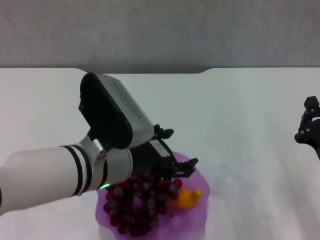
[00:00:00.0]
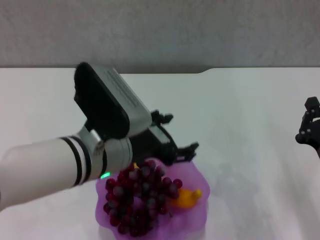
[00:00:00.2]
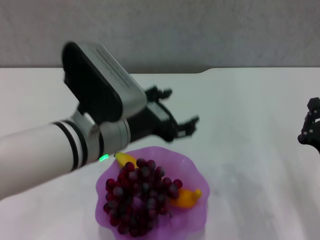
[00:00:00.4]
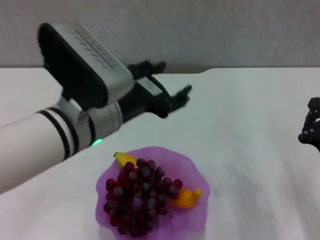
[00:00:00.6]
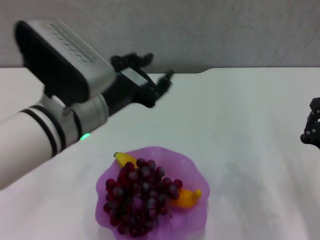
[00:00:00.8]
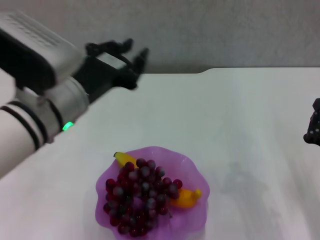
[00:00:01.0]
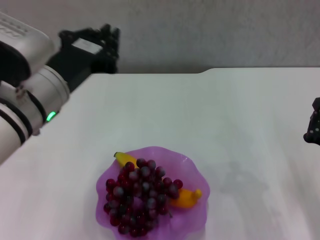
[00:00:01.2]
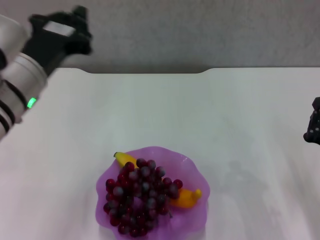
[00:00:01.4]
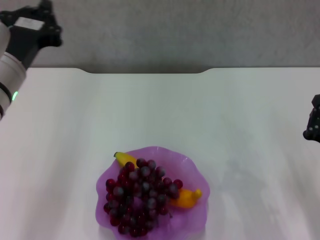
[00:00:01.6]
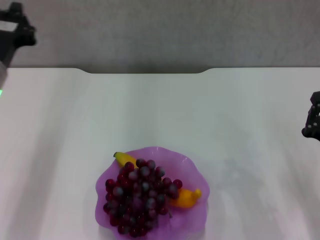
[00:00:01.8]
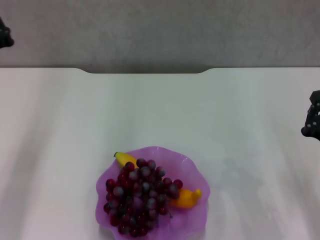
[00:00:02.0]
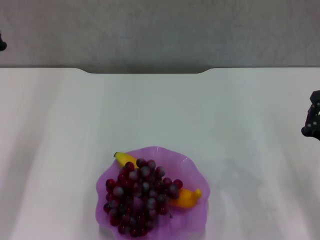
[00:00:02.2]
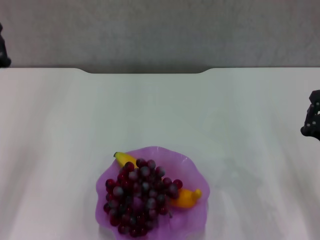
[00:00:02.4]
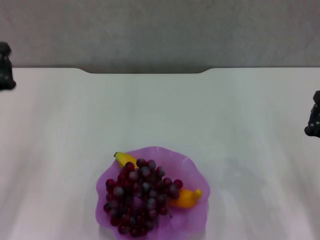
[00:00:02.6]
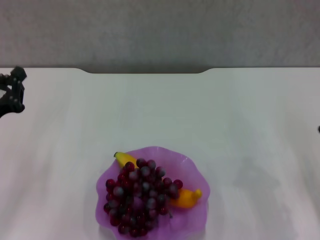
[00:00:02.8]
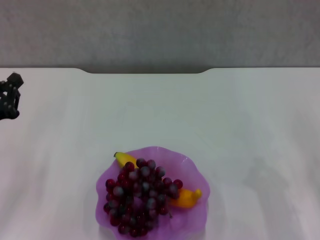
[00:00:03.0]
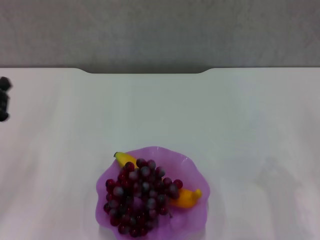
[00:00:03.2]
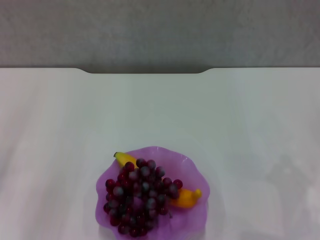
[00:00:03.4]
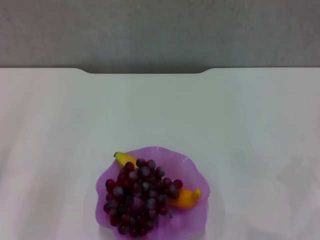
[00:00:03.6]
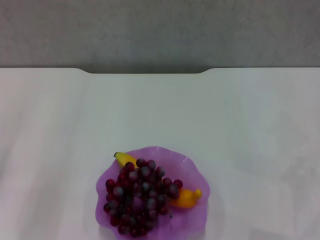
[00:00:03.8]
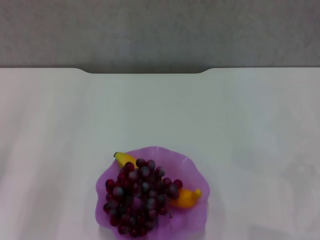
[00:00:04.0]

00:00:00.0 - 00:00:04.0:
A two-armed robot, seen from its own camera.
00:00:00.0 - 00:00:01.4: The left gripper goes about 10 cm to the left and upward, and closes up.
00:00:01.4 - 00:00:02.6: The left gripper goes some 15 cm to the left and downward.
00:00:02.6 - 00:00:04.0: The right gripper is displaced to the right by roughly 5 cm. Meanwhile the left gripper moves roughly 5 cm.

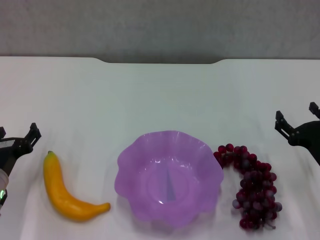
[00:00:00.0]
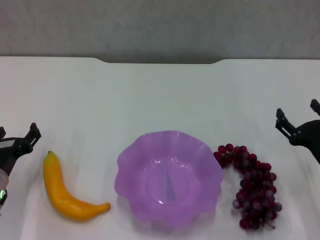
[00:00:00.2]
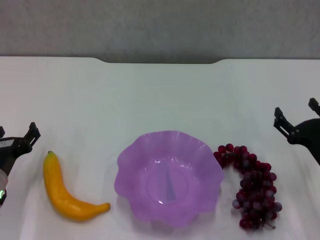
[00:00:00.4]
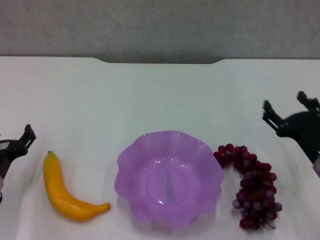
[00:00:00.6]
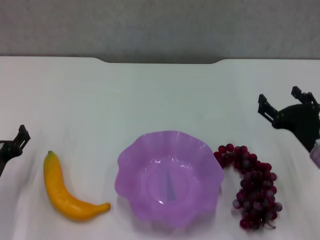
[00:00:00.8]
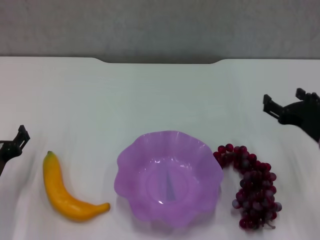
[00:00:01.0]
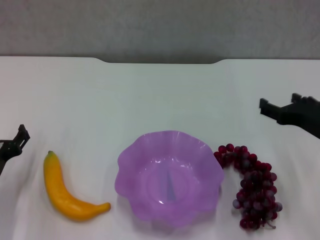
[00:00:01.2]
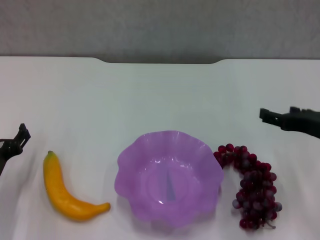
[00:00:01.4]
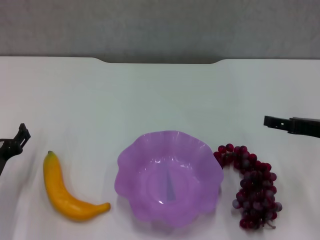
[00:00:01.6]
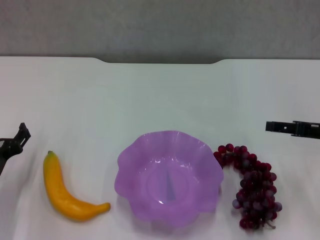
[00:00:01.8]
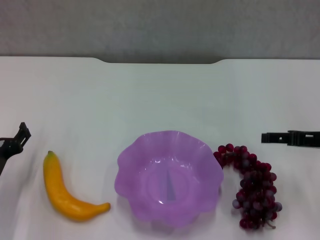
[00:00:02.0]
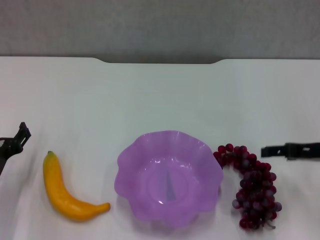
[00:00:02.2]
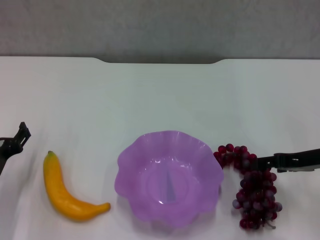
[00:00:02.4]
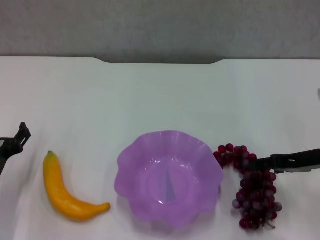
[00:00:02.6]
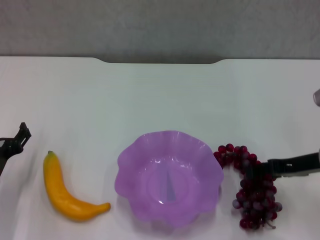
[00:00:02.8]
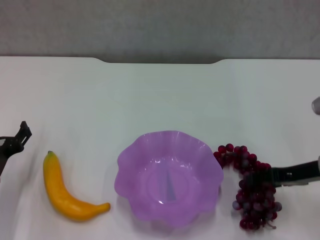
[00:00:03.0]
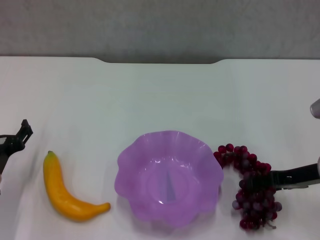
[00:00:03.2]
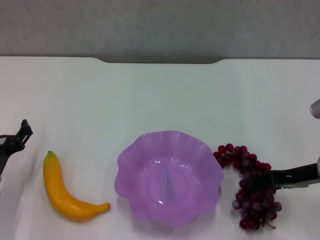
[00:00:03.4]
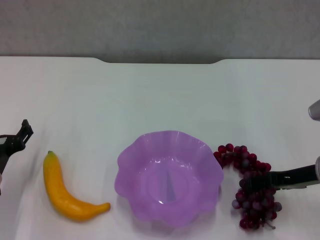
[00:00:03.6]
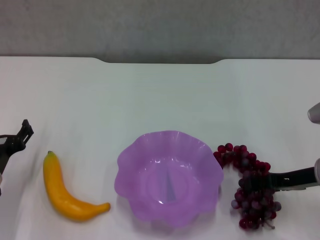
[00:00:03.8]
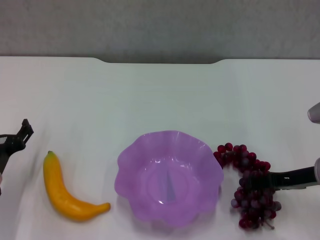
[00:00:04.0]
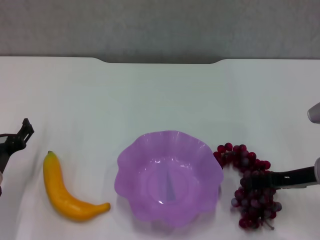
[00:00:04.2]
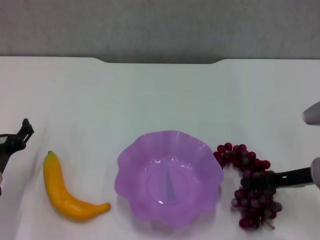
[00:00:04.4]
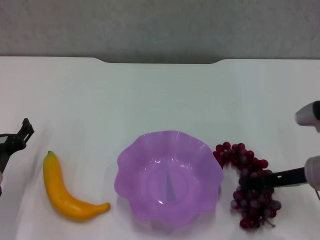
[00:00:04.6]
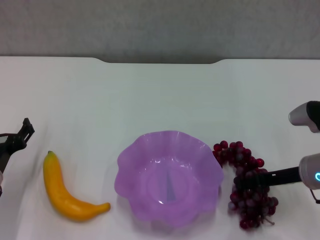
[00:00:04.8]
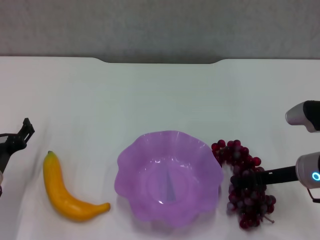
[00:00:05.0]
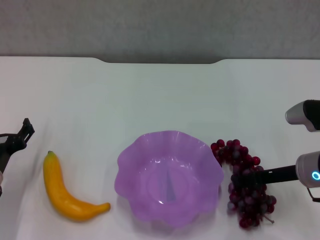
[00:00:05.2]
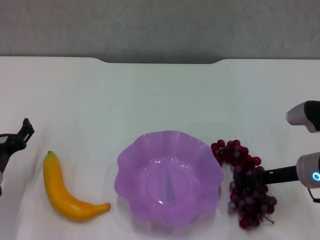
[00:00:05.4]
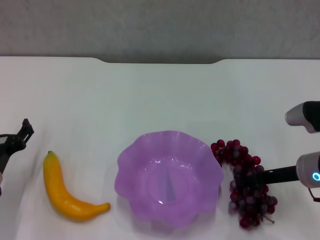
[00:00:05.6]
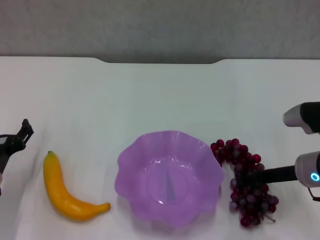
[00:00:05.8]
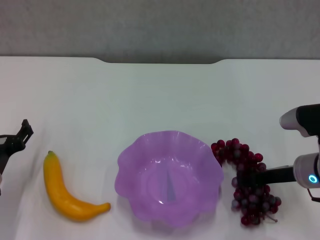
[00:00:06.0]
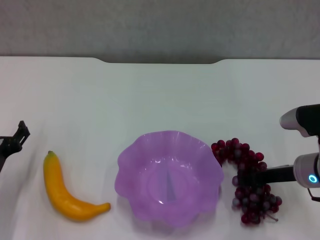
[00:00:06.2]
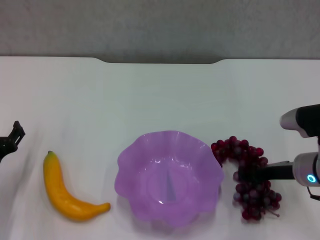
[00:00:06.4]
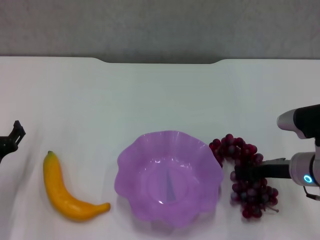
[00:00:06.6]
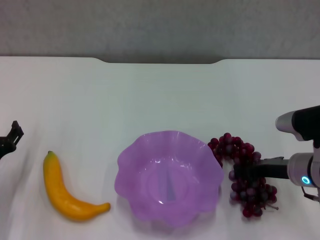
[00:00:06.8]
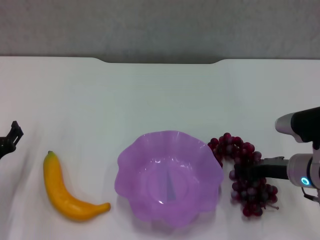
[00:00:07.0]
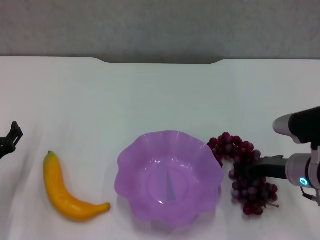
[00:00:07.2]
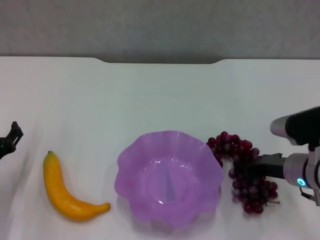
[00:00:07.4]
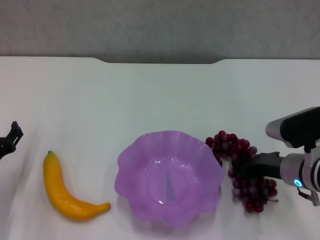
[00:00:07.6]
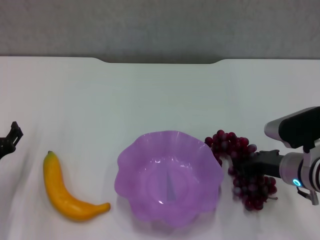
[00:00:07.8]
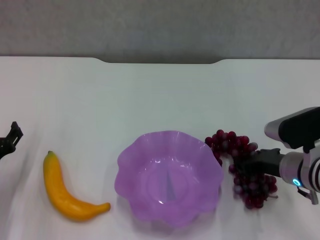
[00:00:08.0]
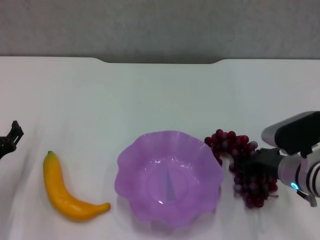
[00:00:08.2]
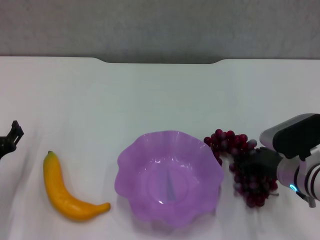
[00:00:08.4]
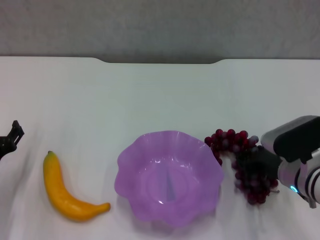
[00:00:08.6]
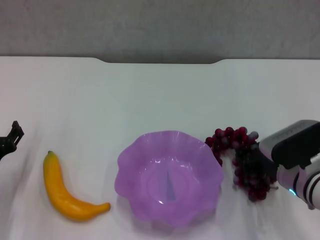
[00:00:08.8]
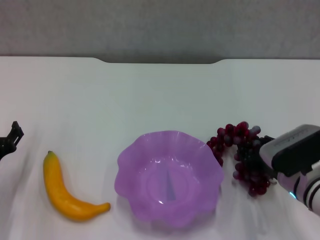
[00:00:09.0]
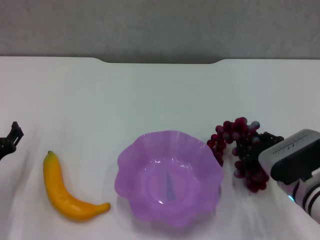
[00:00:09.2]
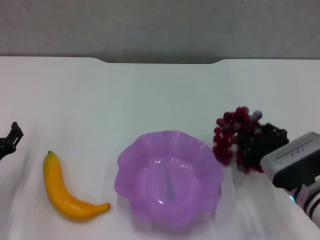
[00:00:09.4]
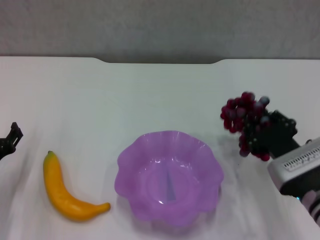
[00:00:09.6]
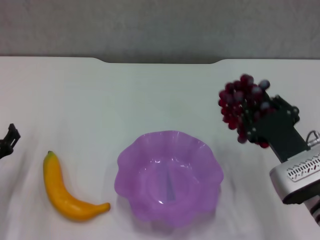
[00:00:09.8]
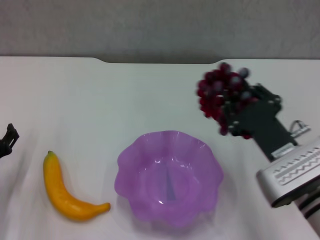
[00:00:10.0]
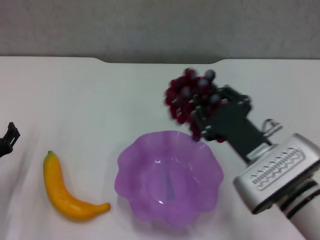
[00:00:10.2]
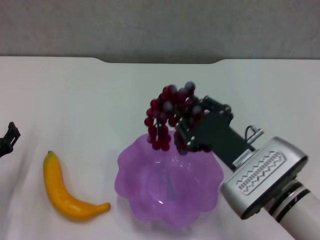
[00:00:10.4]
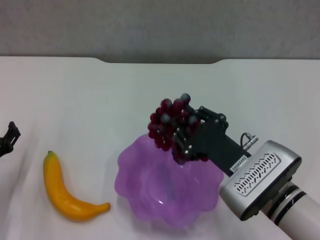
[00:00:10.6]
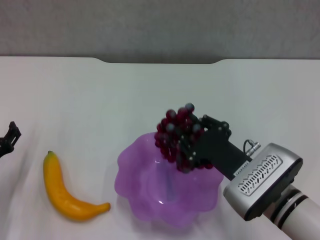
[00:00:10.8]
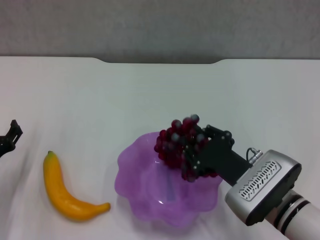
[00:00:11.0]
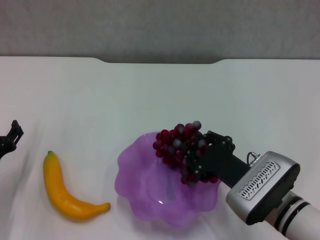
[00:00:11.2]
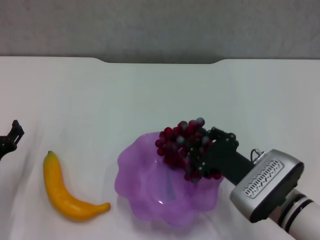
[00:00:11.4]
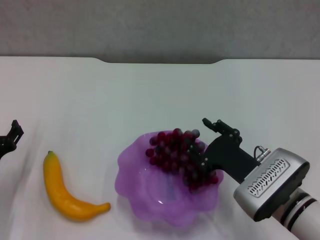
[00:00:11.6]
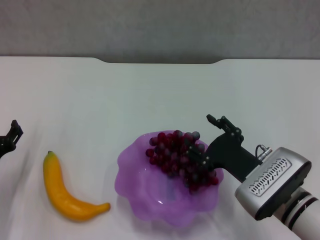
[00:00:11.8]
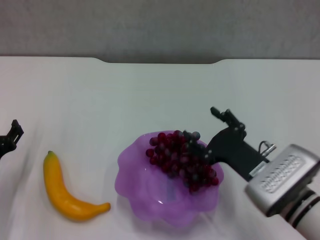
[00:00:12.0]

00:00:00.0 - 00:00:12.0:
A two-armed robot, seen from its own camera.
Step, 00:00:00.0 - 00:00:05.0: Grasp the grape with right gripper.
00:00:00.0 - 00:00:01.6: The right gripper moves upward, approximately 10 cm.
00:00:01.6 - 00:00:03.0: The right gripper is displaced downward by roughly 5 cm.
00:00:03.0 - 00:00:04.4: There are only small adjustments of the grippers.
00:00:04.4 - 00:00:06.0: The right gripper closes.
00:00:06.0 - 00:00:07.6: The grippers stay close to where they were, moving slightly.
00:00:09.0 - 00:00:10.4: The right gripper goes some 10 cm to the left and upward.
00:00:10.4 - 00:00:12.0: The right gripper opens.

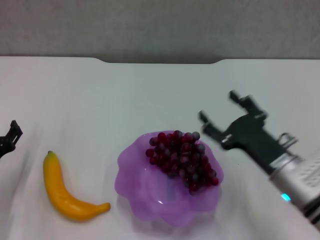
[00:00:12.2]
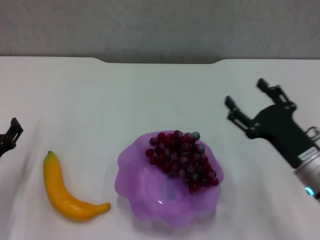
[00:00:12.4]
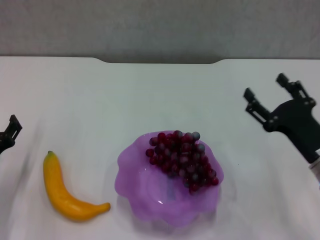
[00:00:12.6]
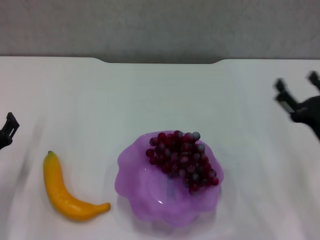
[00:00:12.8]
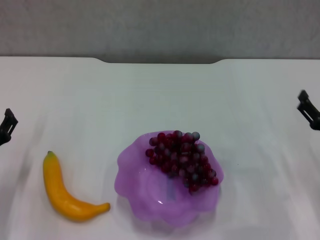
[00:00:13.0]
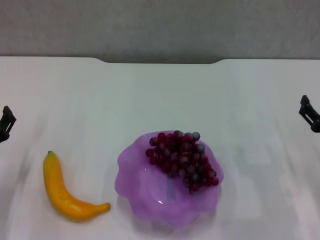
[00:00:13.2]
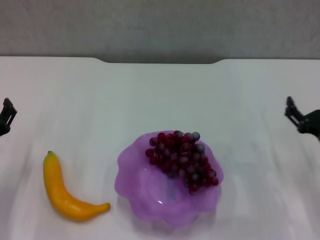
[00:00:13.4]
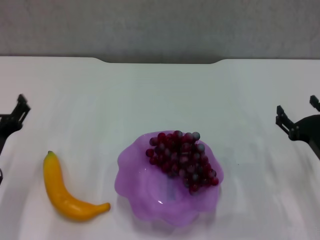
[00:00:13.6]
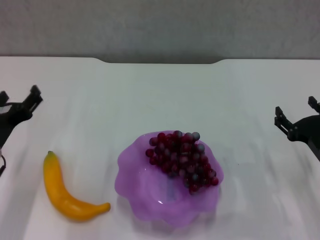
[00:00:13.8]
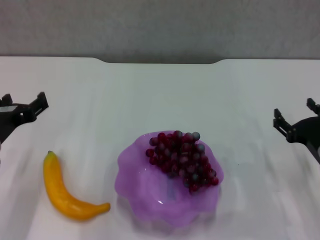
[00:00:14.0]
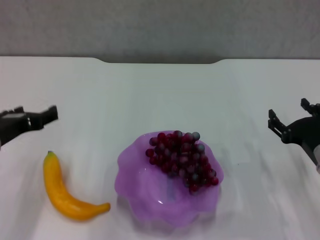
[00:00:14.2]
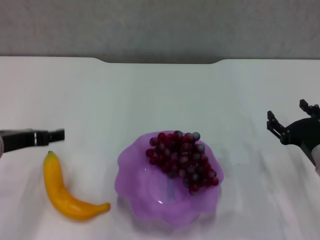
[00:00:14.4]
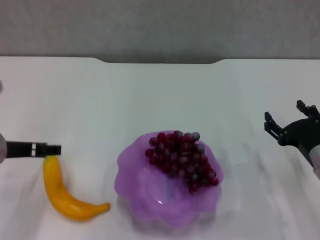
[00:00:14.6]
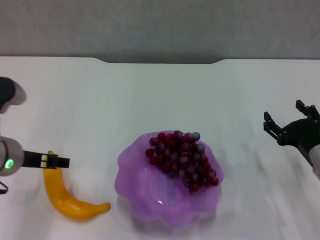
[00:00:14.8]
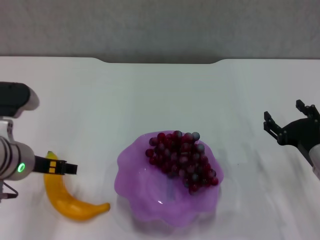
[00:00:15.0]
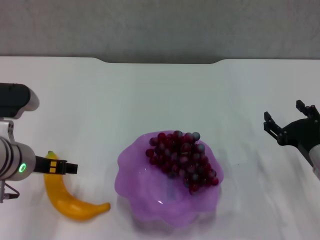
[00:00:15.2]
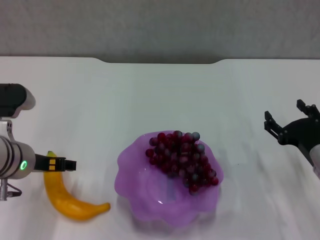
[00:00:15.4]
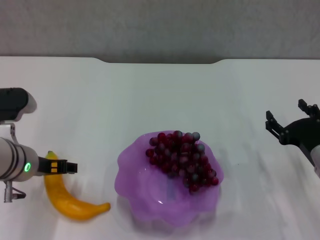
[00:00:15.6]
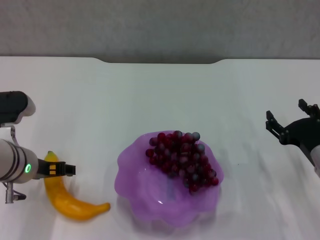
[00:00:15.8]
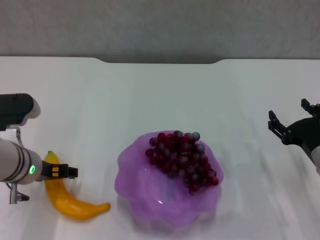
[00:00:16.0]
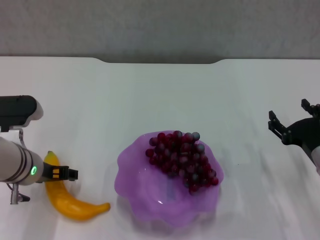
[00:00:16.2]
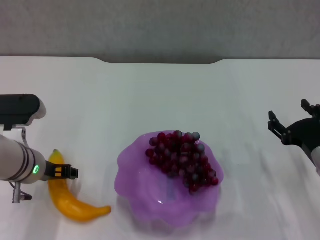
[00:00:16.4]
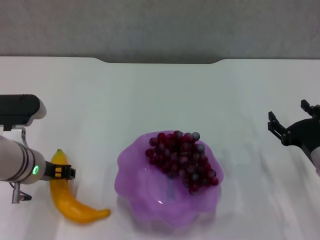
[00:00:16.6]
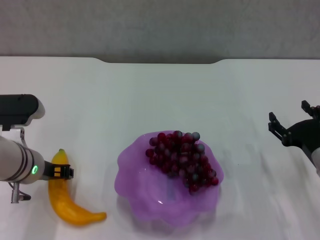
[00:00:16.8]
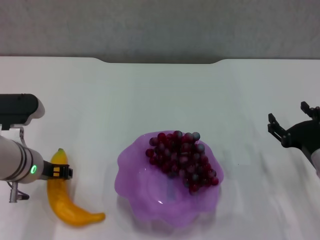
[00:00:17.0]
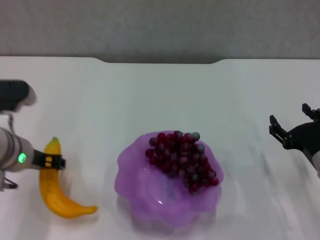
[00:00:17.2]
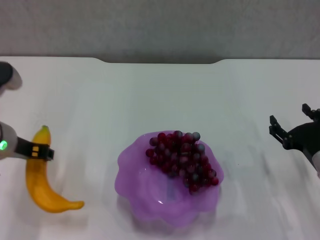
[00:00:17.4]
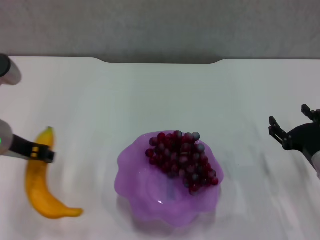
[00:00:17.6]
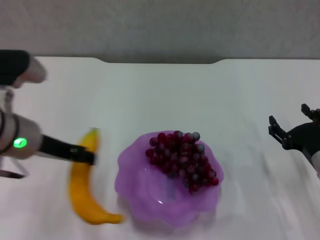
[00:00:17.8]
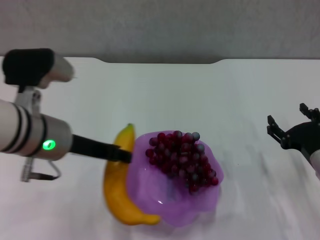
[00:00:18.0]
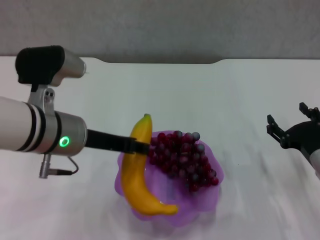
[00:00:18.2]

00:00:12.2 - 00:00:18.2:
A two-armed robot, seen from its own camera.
Step, 00:00:12.6 - 00:00:16.8: Grasp the banana with left gripper.
00:00:12.2 - 00:00:13.8: The right gripper heads to the right, covering approximately 10 cm; the left gripper shifts some 5 cm upward.
00:00:13.8 - 00:00:15.2: The left gripper travels to the right by roughly 5 cm.
00:00:15.2 - 00:00:16.6: The left gripper closes.
00:00:16.6 - 00:00:18.2: The left gripper travels upward and to the right by some 10 cm, and closes.
